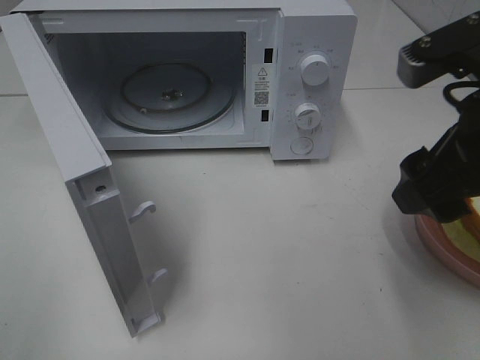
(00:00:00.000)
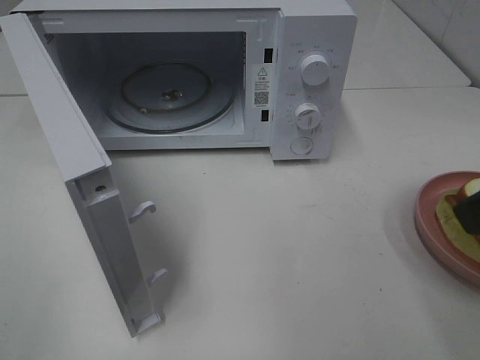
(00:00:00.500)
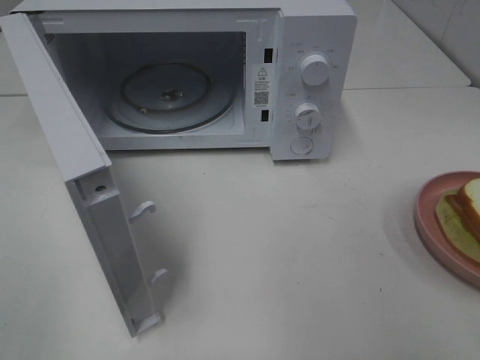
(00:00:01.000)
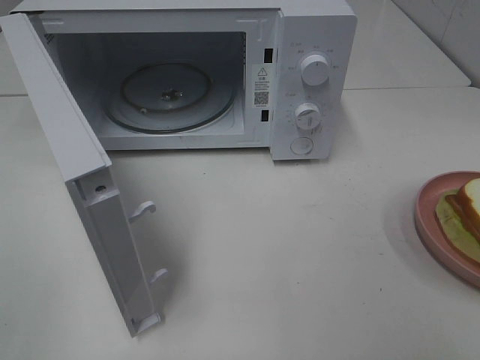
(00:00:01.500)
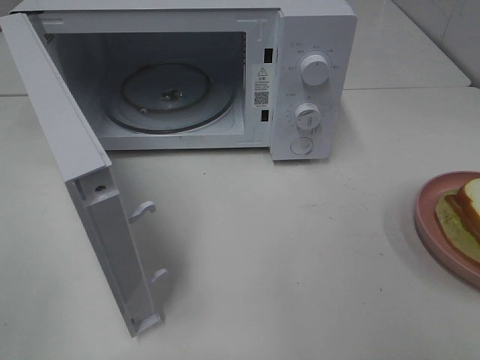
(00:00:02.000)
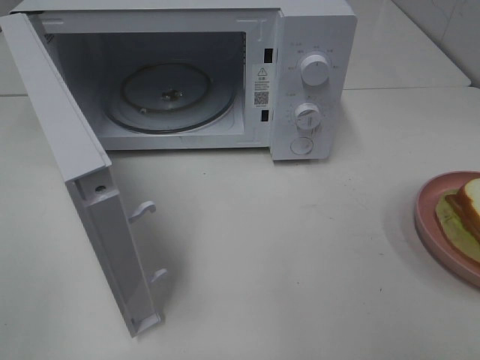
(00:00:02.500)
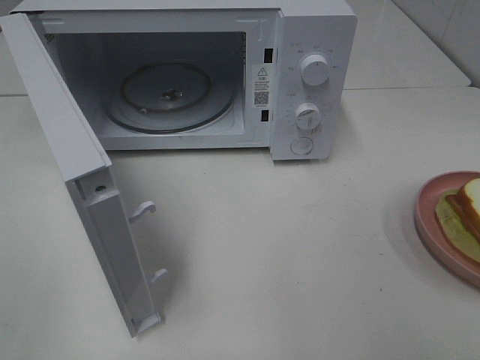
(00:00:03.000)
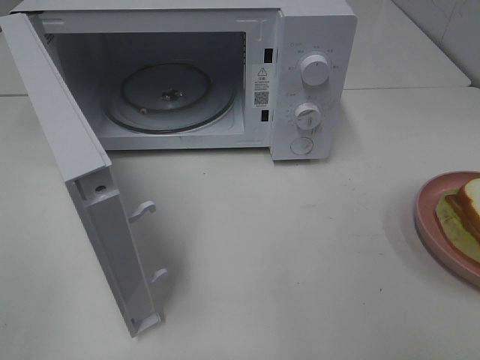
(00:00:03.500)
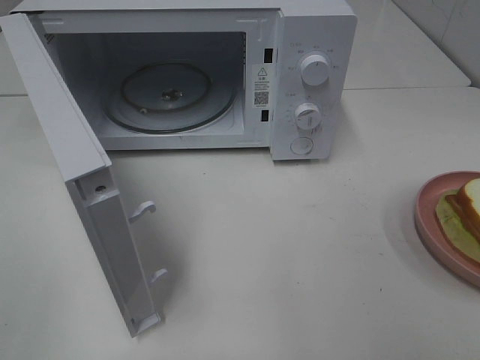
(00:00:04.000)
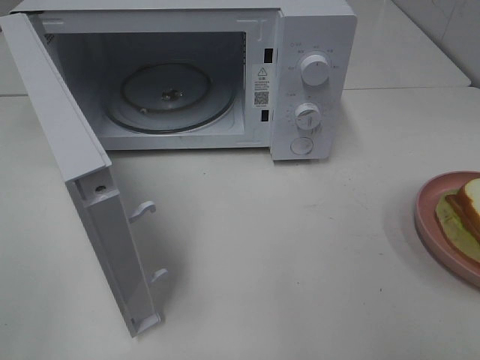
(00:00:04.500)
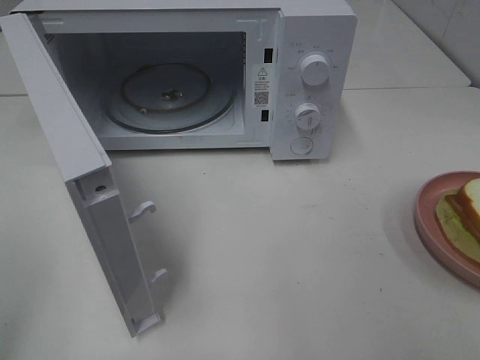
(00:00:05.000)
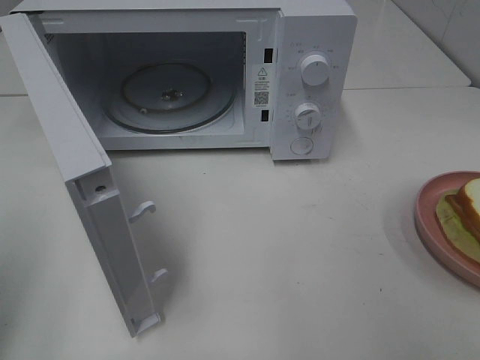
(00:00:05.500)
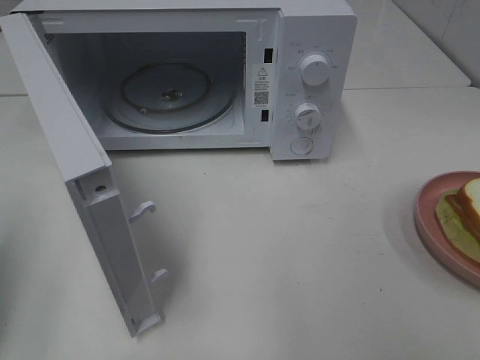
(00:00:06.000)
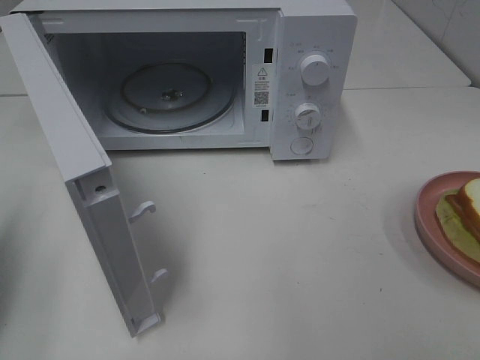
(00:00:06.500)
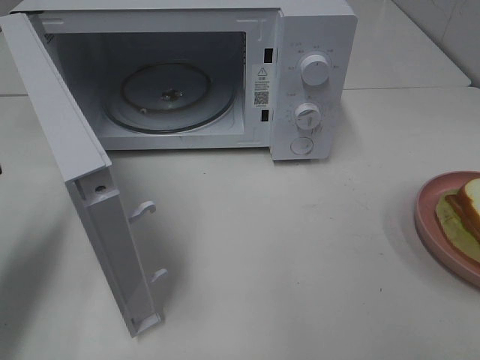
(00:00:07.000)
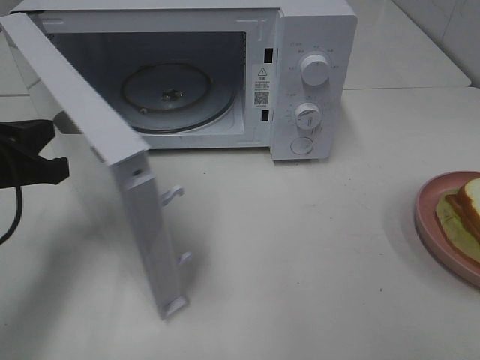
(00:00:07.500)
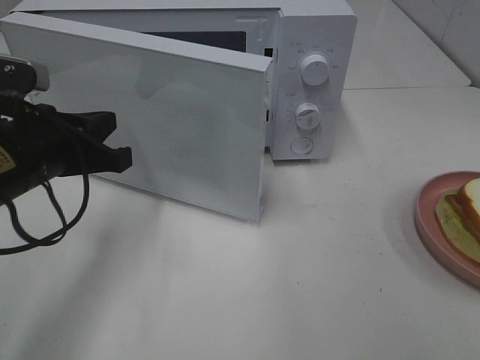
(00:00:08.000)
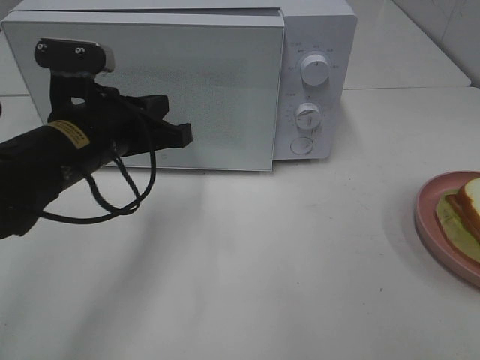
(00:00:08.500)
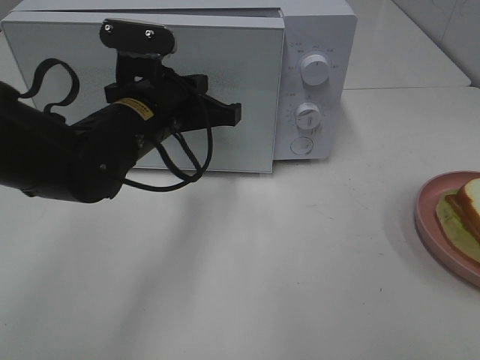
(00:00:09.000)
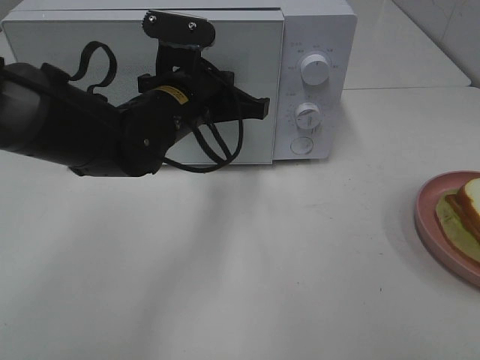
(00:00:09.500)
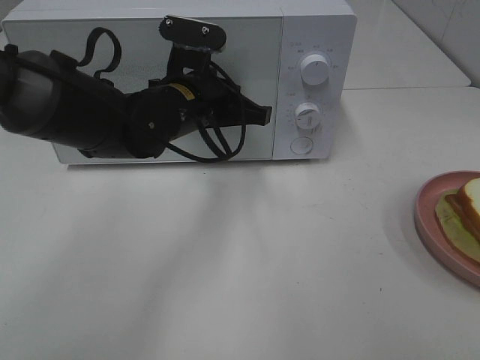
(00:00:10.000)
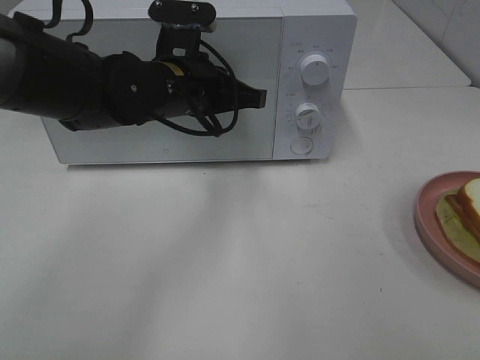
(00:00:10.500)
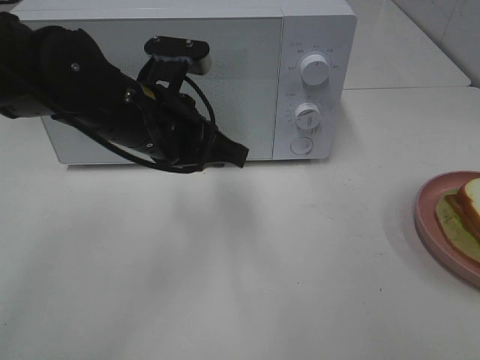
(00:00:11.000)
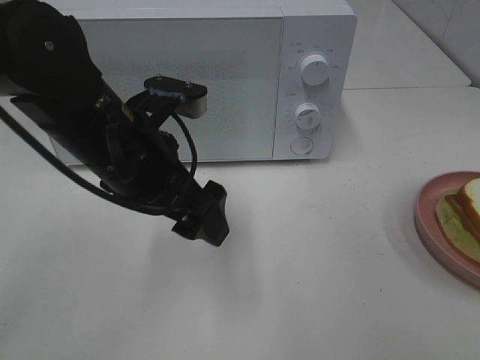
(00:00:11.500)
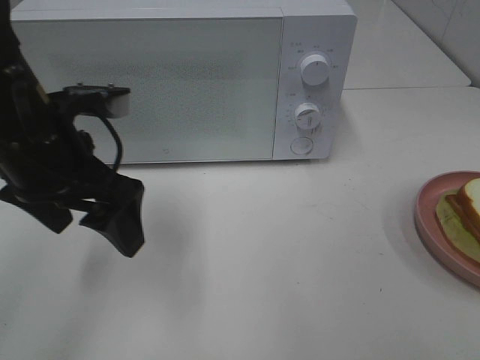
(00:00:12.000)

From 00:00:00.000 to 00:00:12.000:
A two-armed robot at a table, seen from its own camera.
Task of the whole recording: Heat Sandwich.
Step, from 00:00:00.000 to 00:00:10.500: Left hand: close the microwave door.
From 00:00:00.000 to 00:00:02.000: The right gripper travels backward and to the right by roughly 20 cm.
From 00:00:04.000 to 00:00:06.000: The left gripper travels forward by some 15 cm, and closes up.
From 00:00:06.000 to 00:00:08.000: The left gripper travels to the right, forward and downward by about 20 cm.
From 00:00:08.000 to 00:00:10.000: The left gripper heads to the right and forward, covering some 15 cm.
From 00:00:10.000 to 00:00:12.000: The left gripper shifts approximately 15 cm to the left, backward and upward, and opens up.

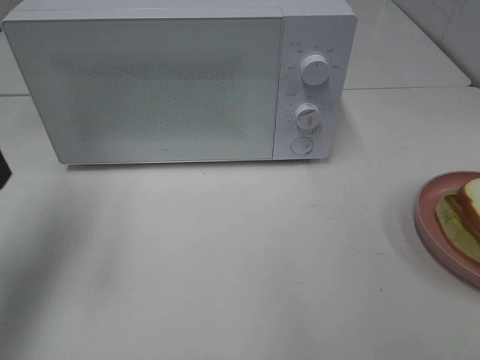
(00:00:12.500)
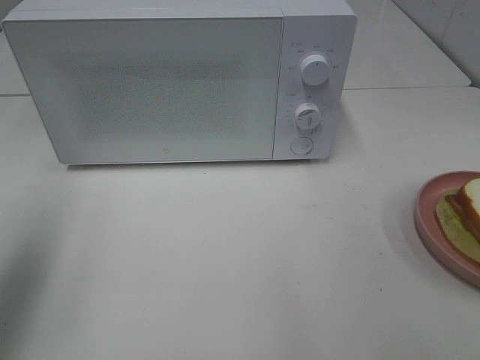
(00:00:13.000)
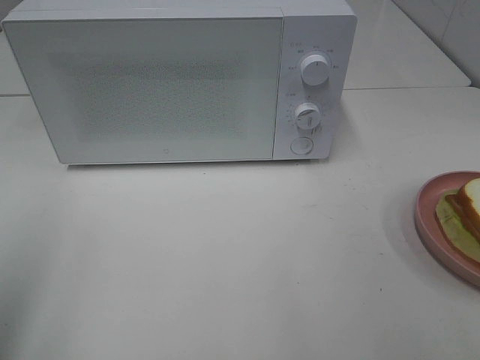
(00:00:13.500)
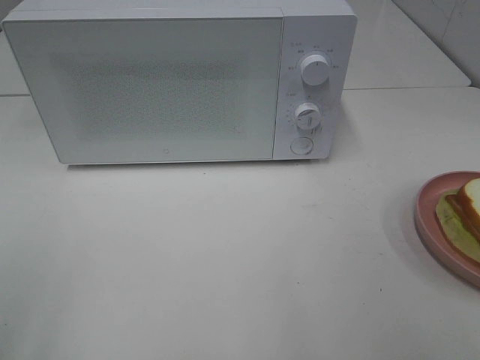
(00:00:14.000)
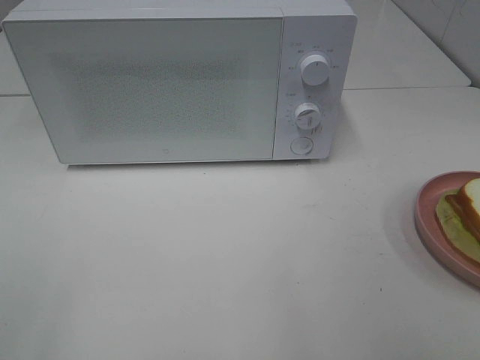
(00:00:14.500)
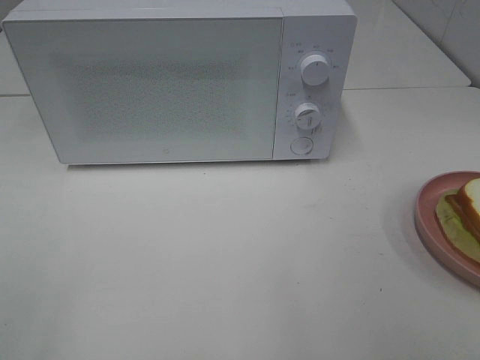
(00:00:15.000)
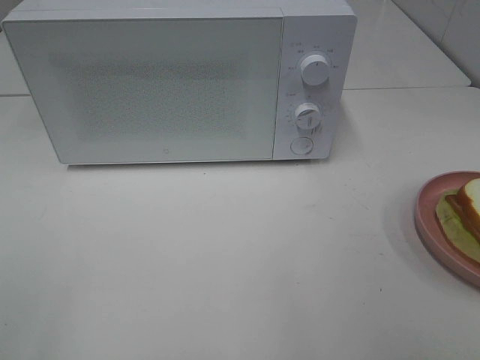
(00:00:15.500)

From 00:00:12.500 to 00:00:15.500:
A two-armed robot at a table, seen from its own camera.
Task of the whole recording: Heat Sandwich.
From 00:00:12.500 to 00:00:14.000: The left gripper shifts some 20 cm backward.

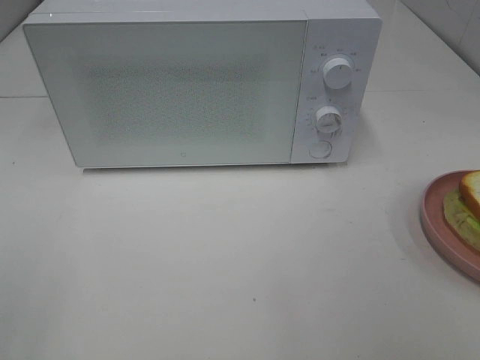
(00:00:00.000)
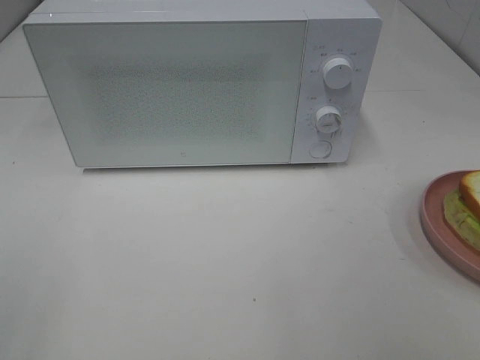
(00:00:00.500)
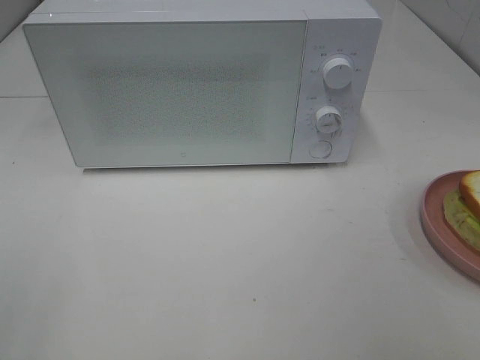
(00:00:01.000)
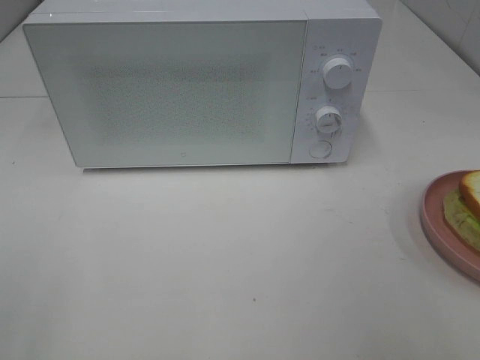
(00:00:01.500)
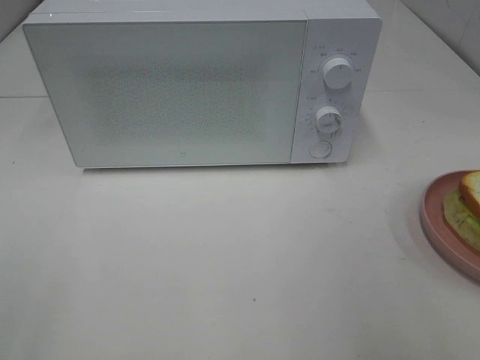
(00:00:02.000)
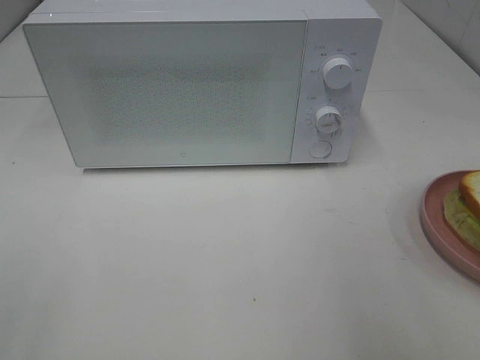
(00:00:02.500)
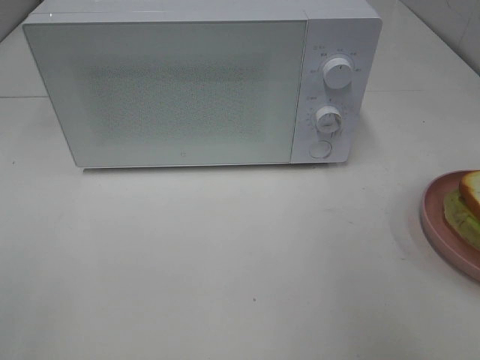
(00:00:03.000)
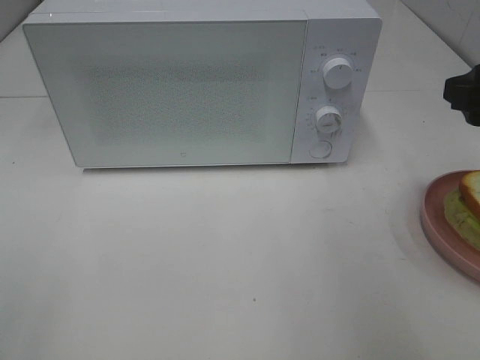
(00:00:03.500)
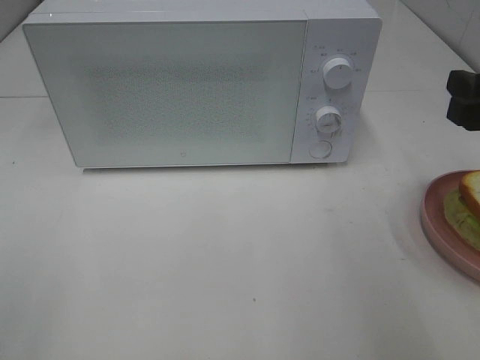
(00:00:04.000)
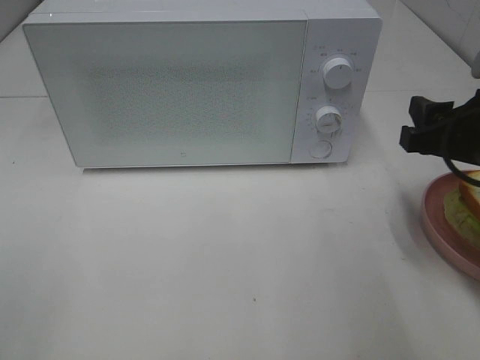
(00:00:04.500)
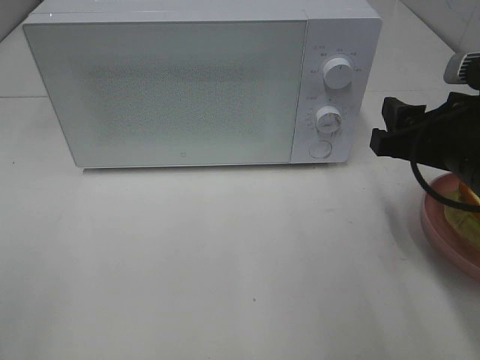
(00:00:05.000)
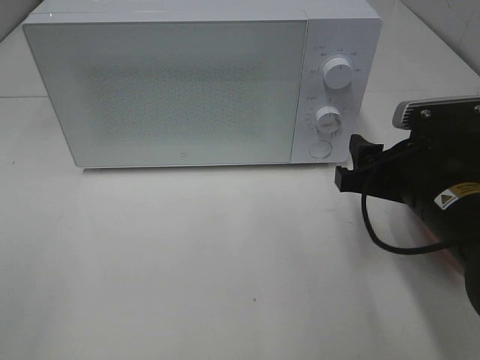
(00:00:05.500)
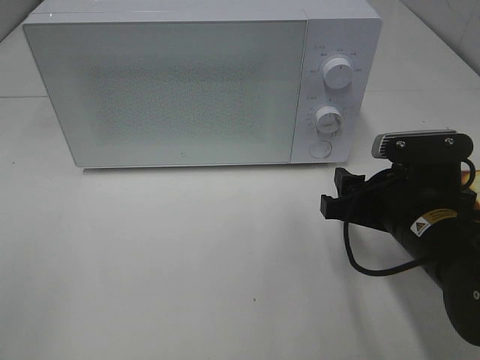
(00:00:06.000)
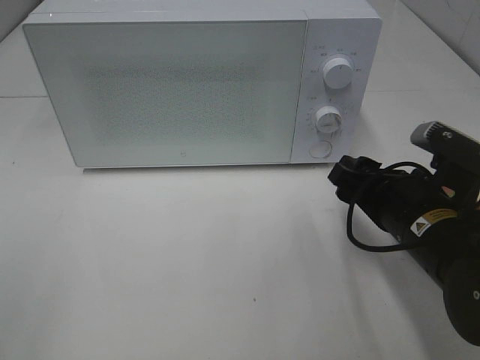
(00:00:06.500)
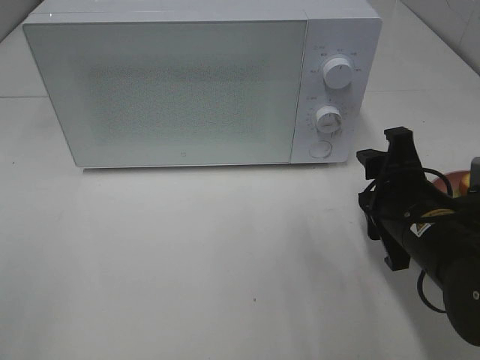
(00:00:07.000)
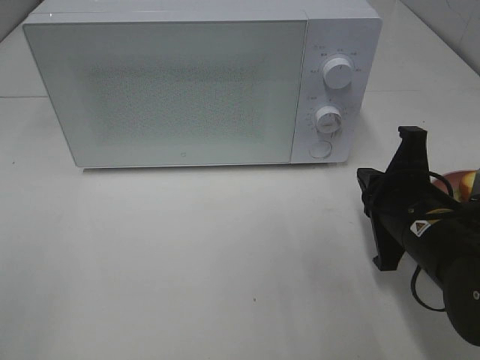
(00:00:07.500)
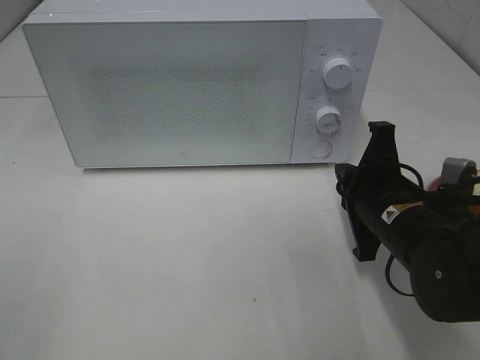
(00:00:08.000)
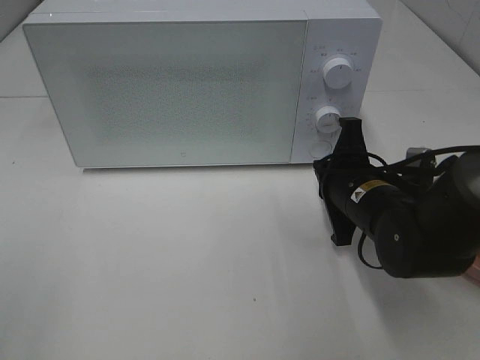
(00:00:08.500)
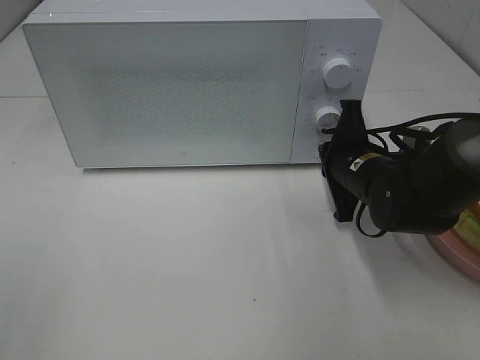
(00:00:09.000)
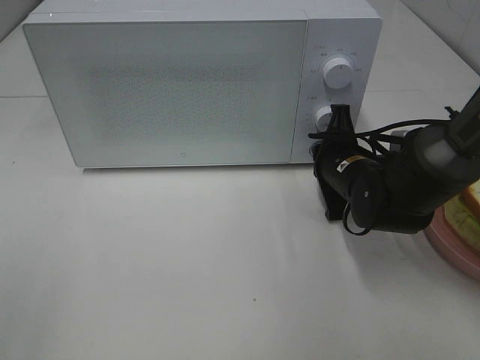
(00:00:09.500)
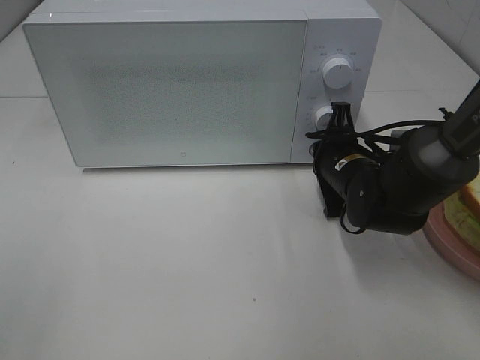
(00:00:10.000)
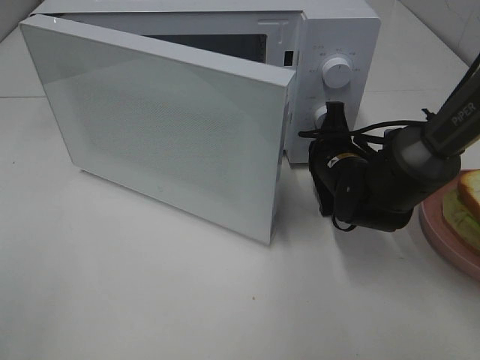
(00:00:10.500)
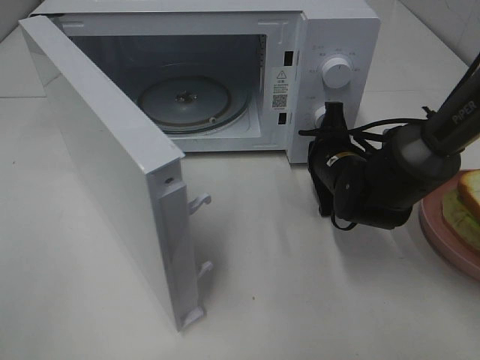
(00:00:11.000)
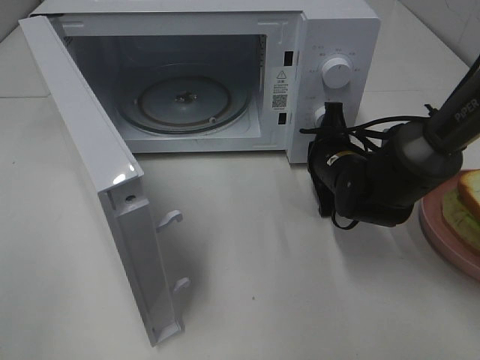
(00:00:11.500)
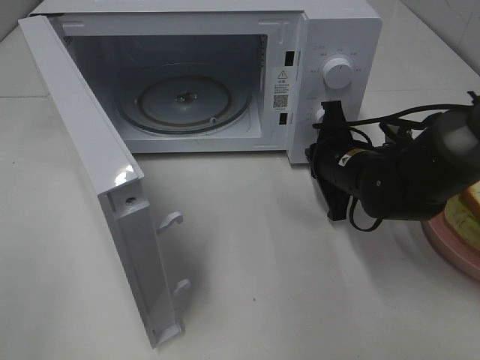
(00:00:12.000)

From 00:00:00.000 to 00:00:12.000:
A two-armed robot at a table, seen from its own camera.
Task of the whole recording: Heat Sandwich.
From 00:00:02.000 to 00:00:04.000: The right gripper goes about 15 cm forward and downward.
From 00:00:04.000 to 00:00:06.000: The right gripper heads downward and to the left, covering some 15 cm.
From 00:00:06.000 to 00:00:08.000: The right gripper closes its fingers.
From 00:00:08.000 to 00:00:10.000: The right gripper is displaced forward by some 10 cm.
